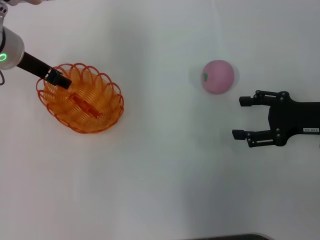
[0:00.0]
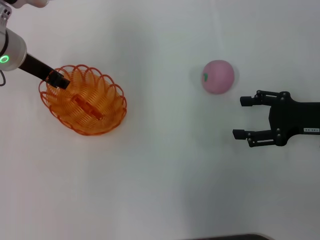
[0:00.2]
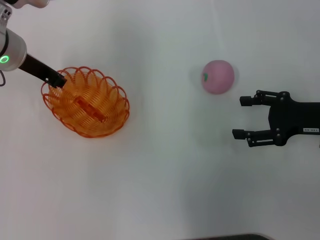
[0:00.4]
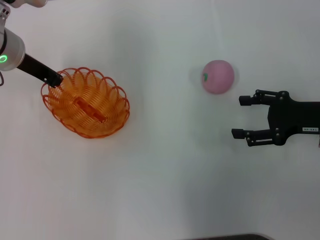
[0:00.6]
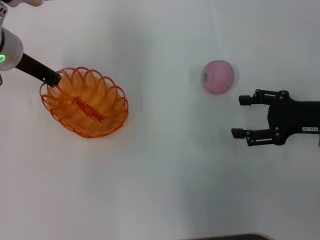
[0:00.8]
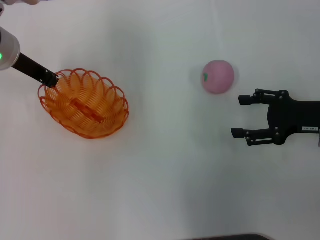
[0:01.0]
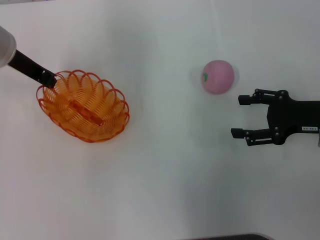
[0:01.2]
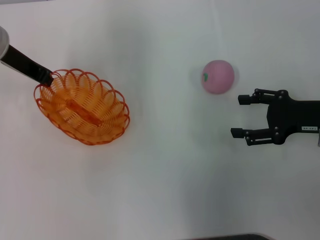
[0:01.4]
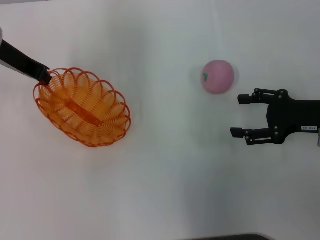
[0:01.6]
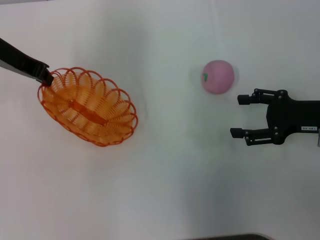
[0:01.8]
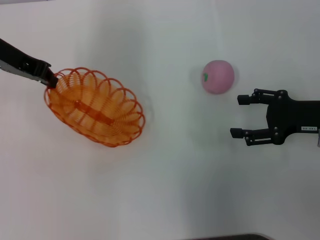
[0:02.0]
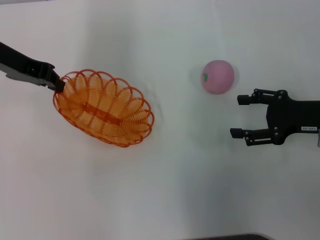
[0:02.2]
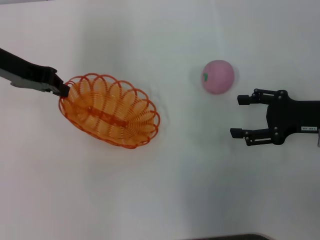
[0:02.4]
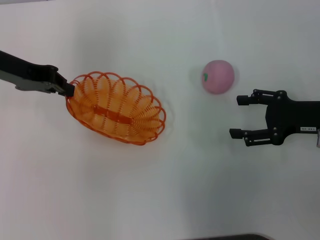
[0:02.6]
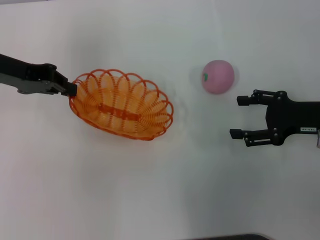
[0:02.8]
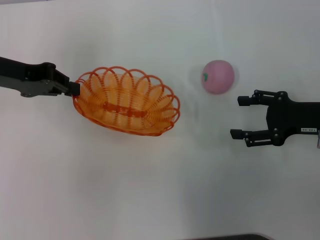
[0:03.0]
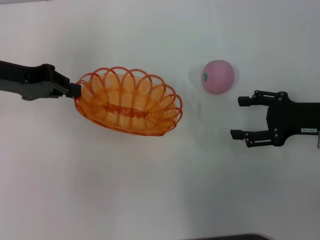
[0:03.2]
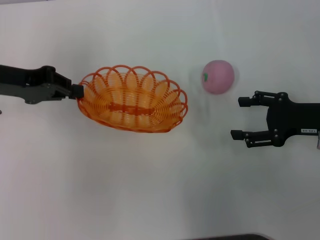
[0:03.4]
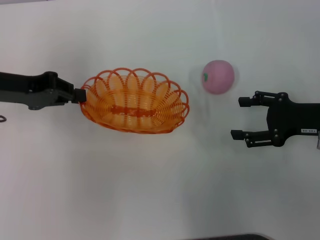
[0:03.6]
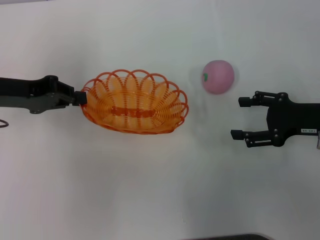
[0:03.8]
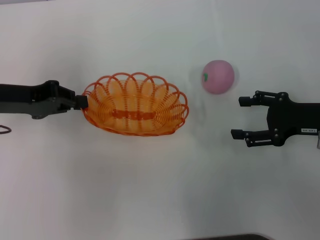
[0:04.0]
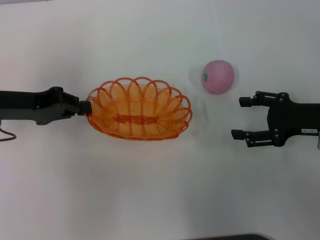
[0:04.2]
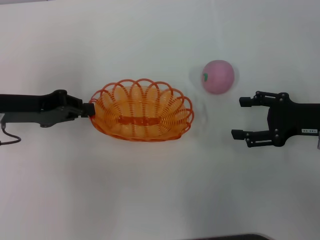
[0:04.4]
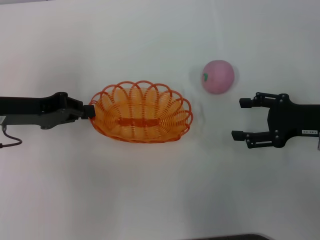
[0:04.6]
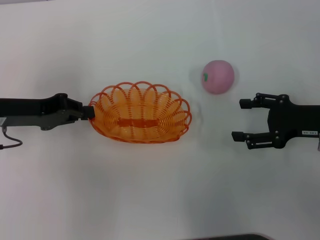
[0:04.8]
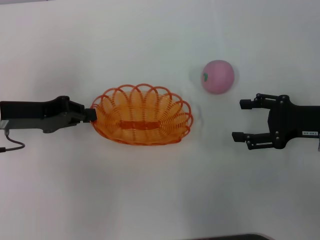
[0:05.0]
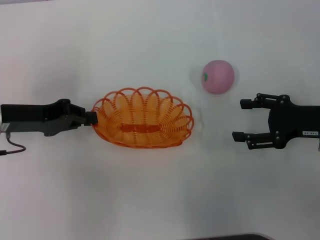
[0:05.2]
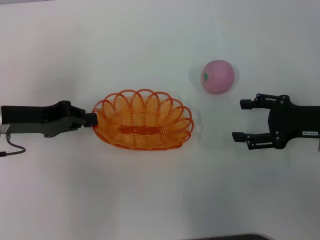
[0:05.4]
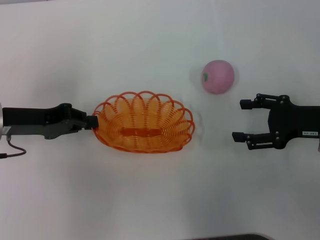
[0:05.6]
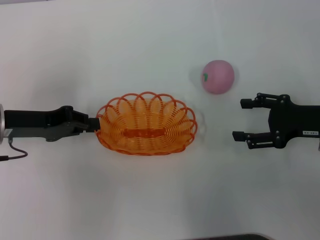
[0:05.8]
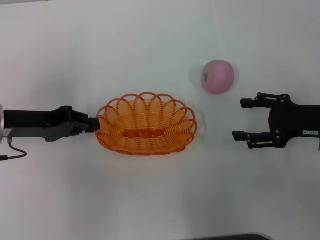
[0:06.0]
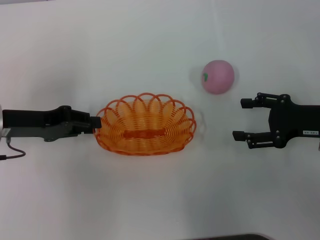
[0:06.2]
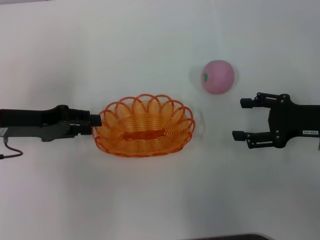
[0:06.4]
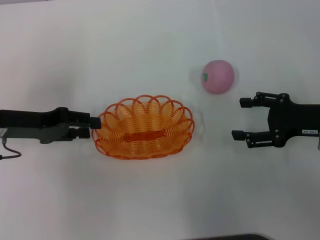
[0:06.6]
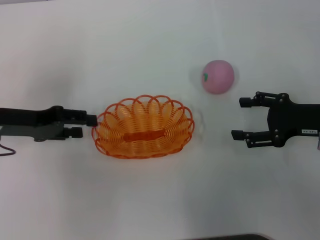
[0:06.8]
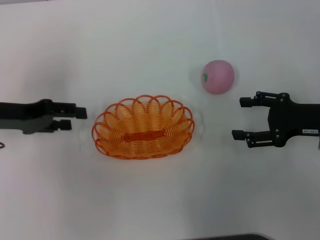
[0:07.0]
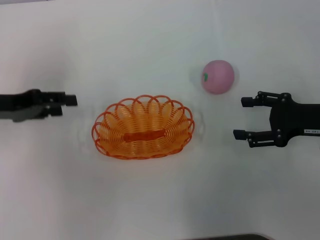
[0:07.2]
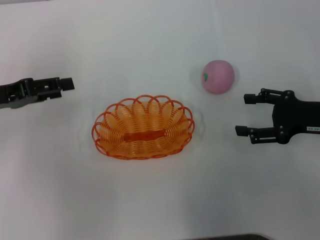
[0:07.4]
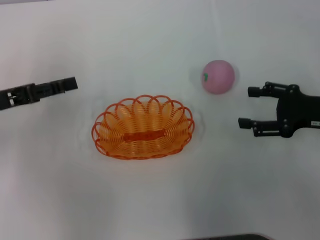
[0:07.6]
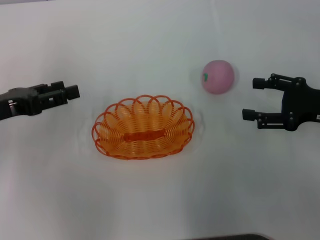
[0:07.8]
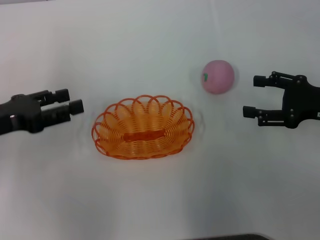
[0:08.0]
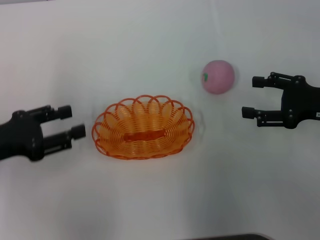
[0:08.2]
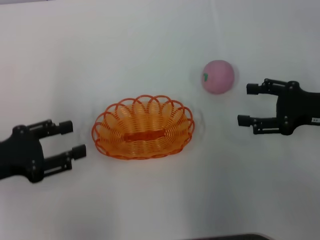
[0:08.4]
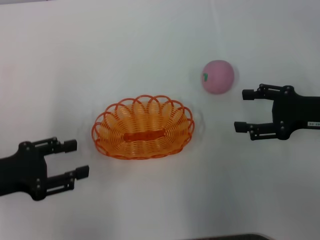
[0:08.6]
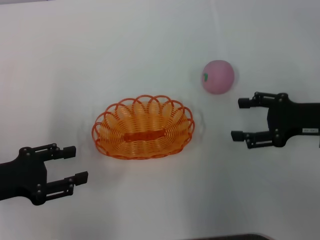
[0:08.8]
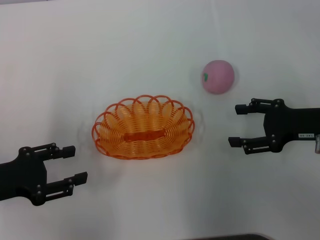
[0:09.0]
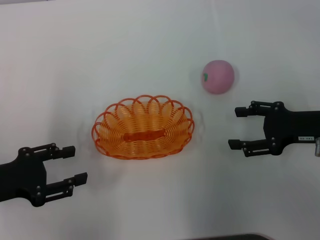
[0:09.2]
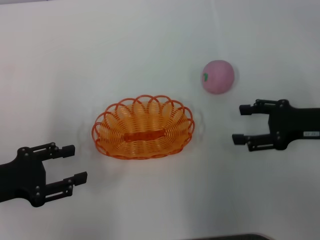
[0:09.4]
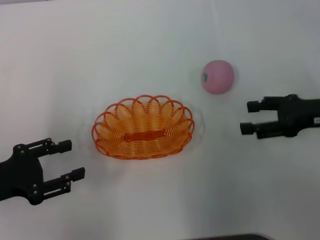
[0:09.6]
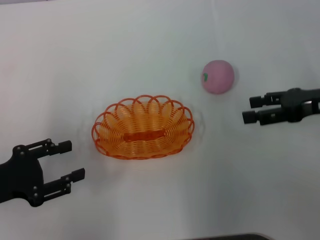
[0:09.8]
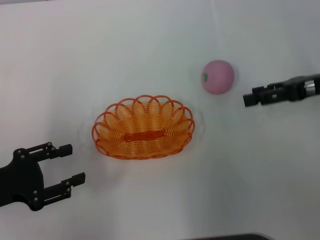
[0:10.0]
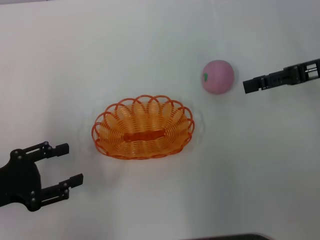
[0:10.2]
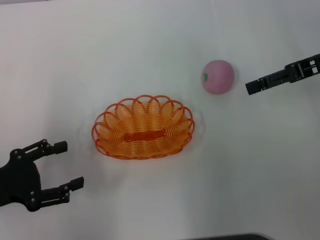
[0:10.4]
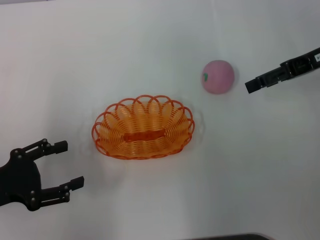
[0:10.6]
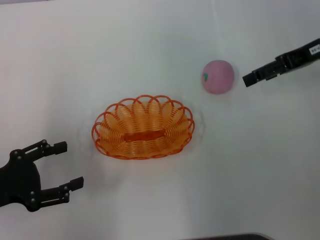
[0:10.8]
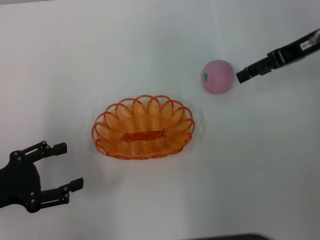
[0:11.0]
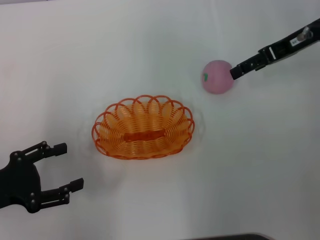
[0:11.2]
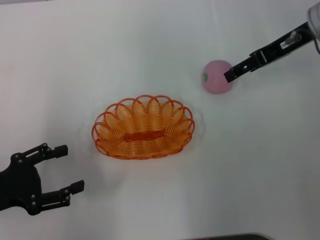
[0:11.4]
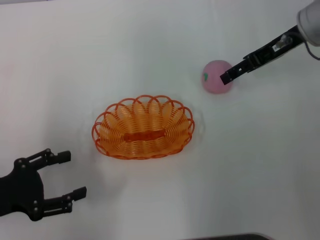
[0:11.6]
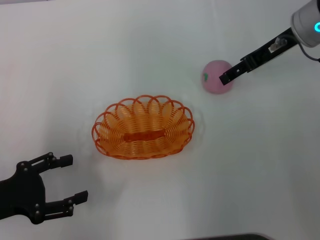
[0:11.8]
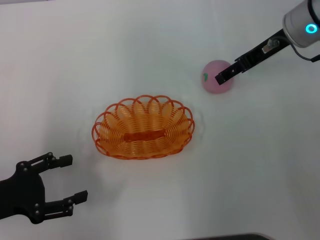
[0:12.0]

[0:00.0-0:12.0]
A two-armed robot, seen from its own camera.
Step, 0:00.0 to 0:02.2: Pick up the basket with the left gripper.
Step, 0:02.6 to 0:09.2: Place the basket in the center of view with the left gripper.
0:00.0 to 0:01.6: The left gripper closes up.
0:01.6 to 0:03.0: The left gripper changes place by some 5 cm.
0:03.0 to 0:04.4: The left gripper moves about 5 cm.
0:04.4 to 0:06.0: The grippers stay close to where they were, moving slightly.
0:06.0 to 0:07.6: The left gripper opens.
0:07.6 to 0:09.0: The left gripper shifts some 10 cm backward.
0:09.0 to 0:10.4: The right gripper is displaced upward and forward by approximately 15 cm.
0:10.4 to 0:12.0: The right gripper travels to the left and forward by about 10 cm.

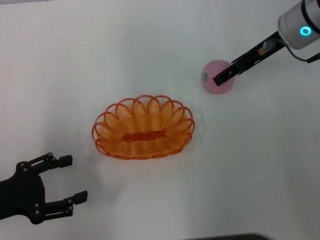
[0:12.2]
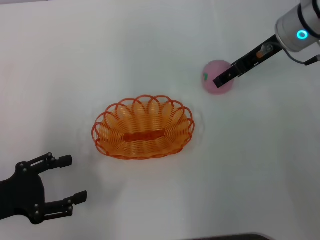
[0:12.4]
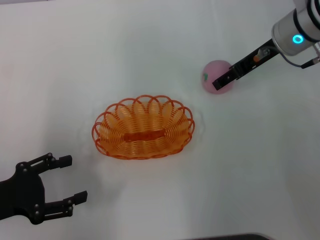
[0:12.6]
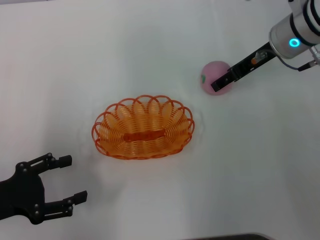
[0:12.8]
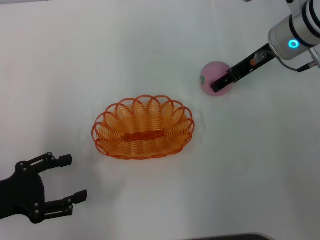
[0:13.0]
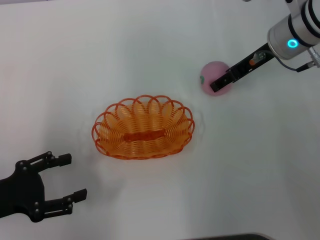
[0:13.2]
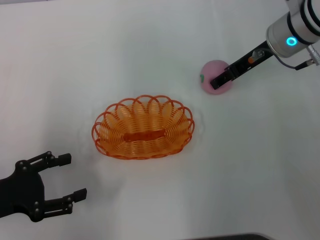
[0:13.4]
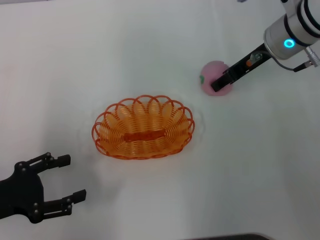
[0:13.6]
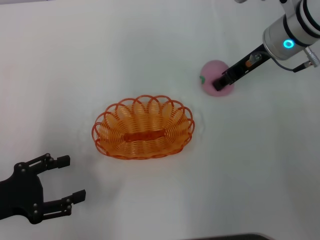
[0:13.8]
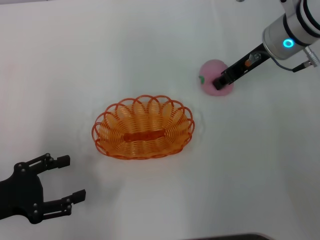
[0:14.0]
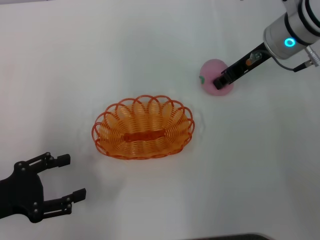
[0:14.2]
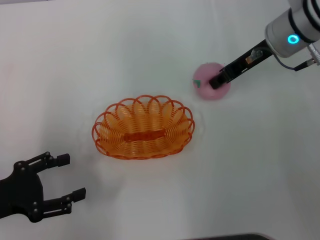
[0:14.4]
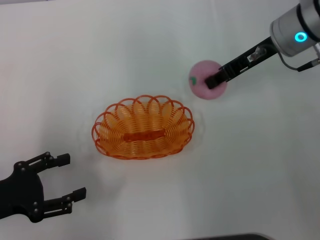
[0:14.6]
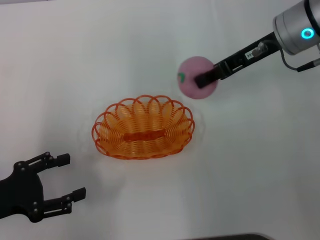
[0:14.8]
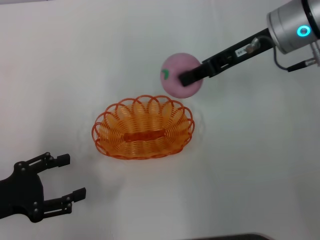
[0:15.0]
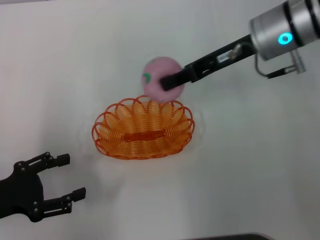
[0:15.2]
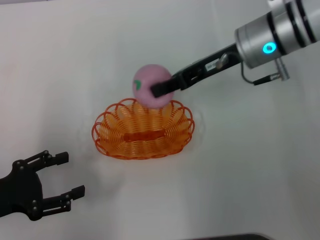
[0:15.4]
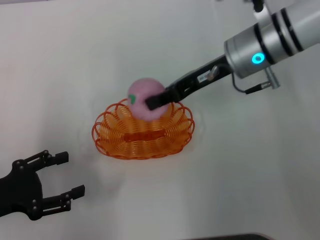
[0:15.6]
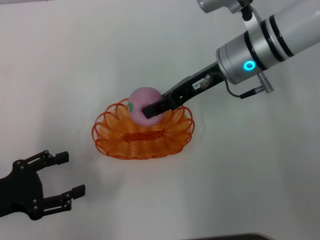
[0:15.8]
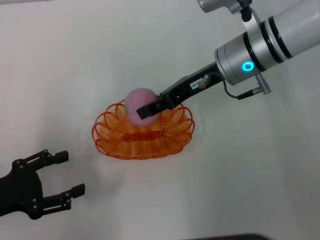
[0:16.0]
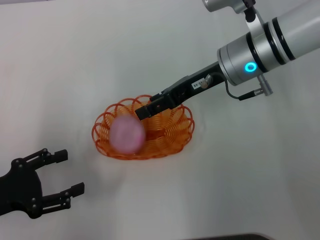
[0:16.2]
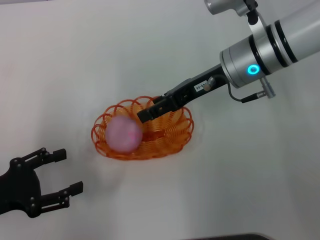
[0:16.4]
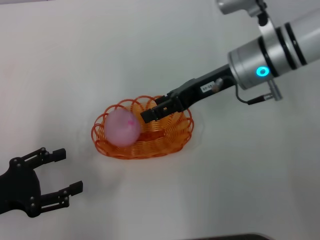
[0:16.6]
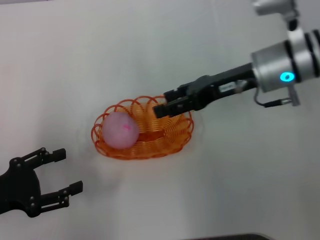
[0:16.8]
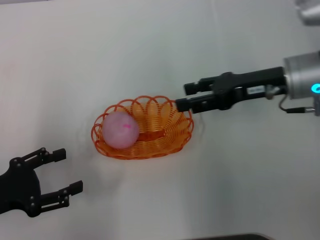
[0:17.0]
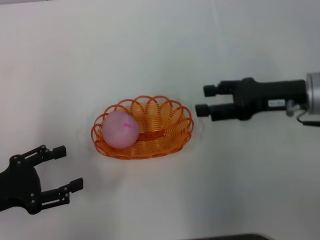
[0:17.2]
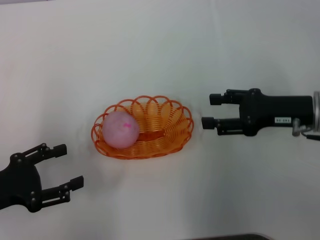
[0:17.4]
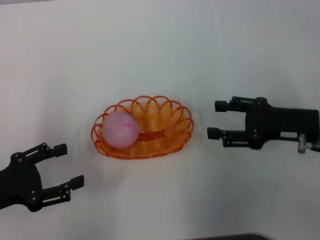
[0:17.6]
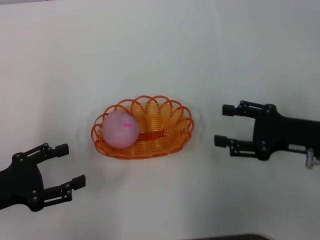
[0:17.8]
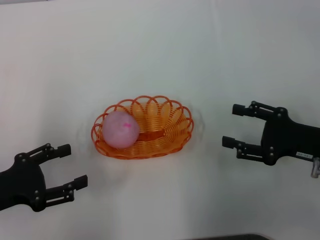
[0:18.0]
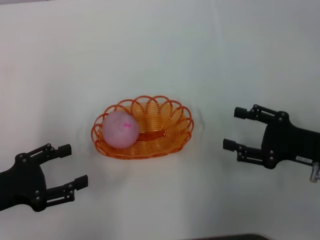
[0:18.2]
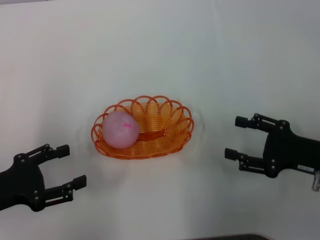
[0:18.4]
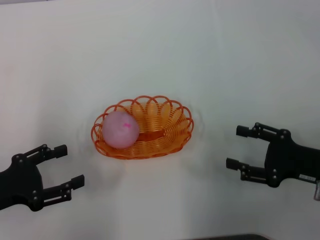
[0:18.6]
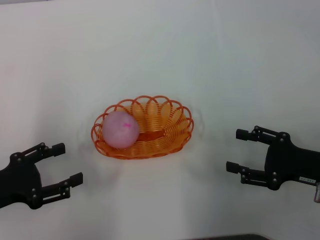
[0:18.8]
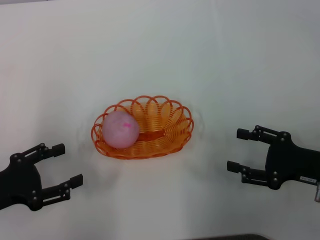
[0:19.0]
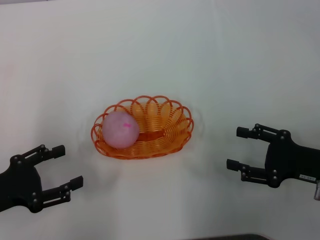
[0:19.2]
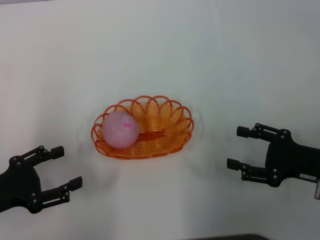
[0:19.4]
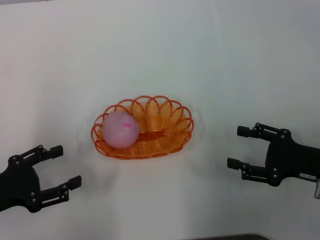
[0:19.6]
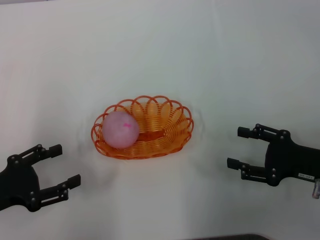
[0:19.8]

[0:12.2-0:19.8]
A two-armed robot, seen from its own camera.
Step, 0:12.2 to 0:14.8: Pick up the peach with the right gripper.
Step, 0:15.0 to 0:17.2: Place the peach into the basket with the right gripper.
0:12.2 to 0:13.8: The right gripper closes its fingers.
0:13.8 to 0:15.2: The right gripper moves about 5 cm, and closes up.
0:15.2 to 0:16.8: The right gripper changes place by approximately 5 cm, and opens its fingers.
0:16.8 to 0:18.2: The right gripper goes some 20 cm backward, to the right and downward.
0:18.2 to 0:19.8: The grippers move only a little.
